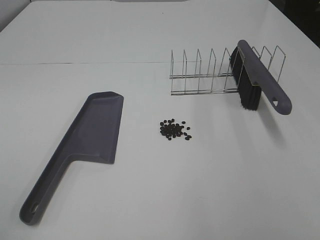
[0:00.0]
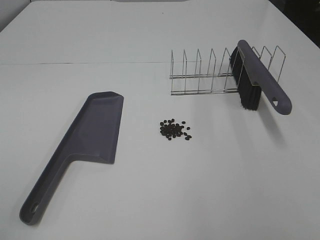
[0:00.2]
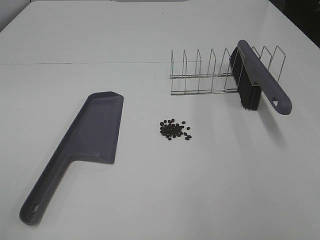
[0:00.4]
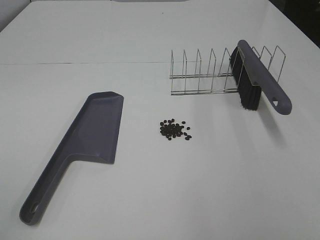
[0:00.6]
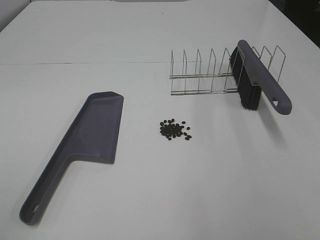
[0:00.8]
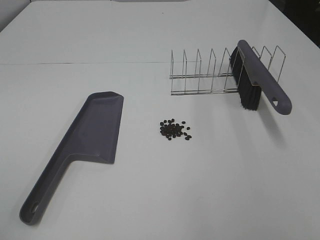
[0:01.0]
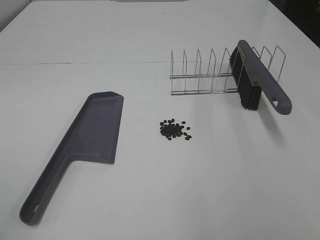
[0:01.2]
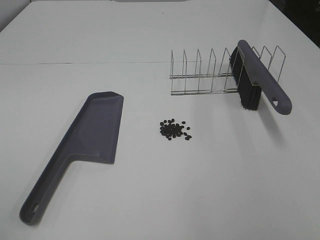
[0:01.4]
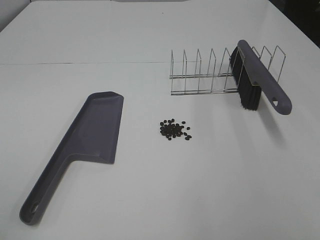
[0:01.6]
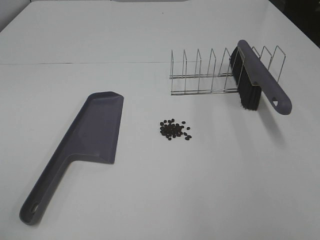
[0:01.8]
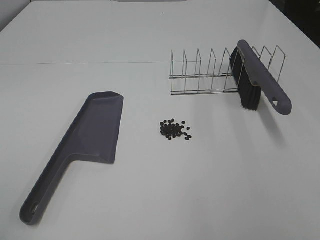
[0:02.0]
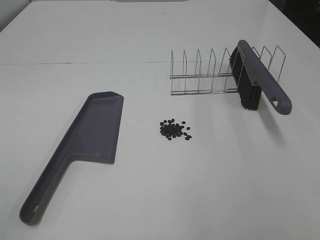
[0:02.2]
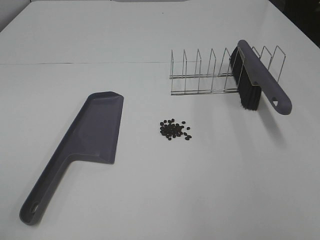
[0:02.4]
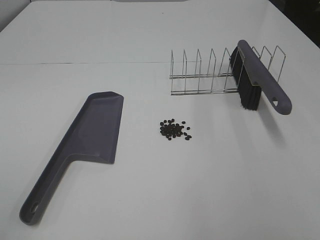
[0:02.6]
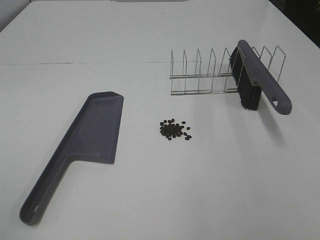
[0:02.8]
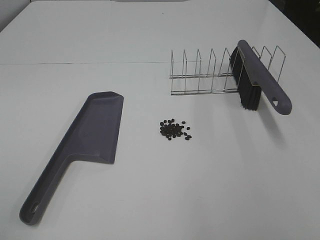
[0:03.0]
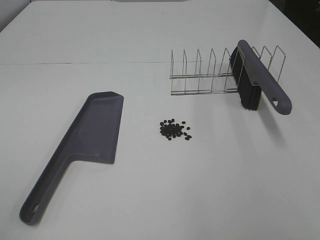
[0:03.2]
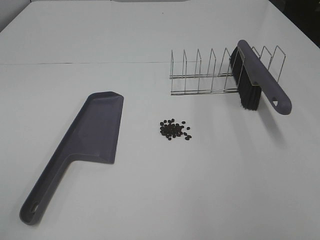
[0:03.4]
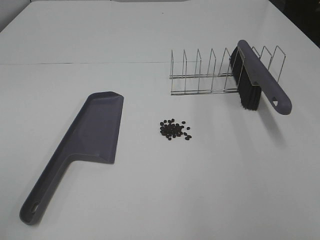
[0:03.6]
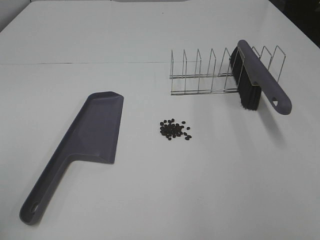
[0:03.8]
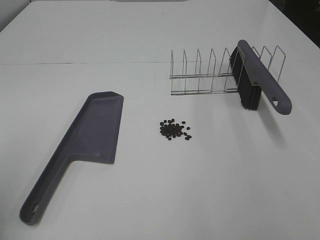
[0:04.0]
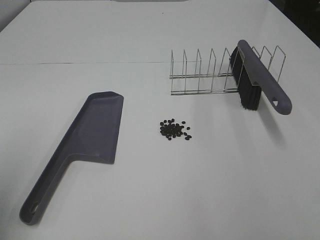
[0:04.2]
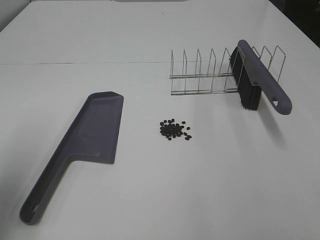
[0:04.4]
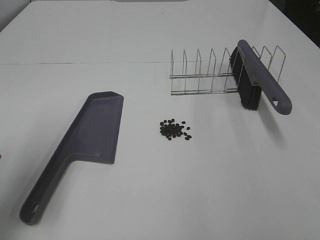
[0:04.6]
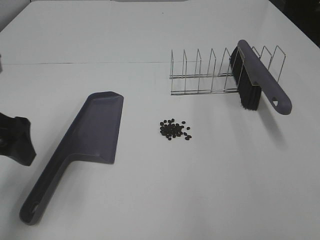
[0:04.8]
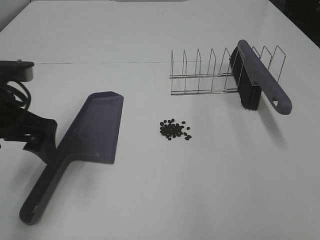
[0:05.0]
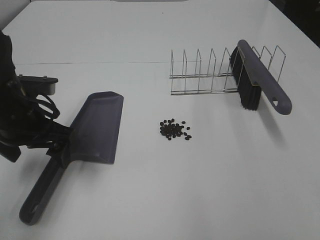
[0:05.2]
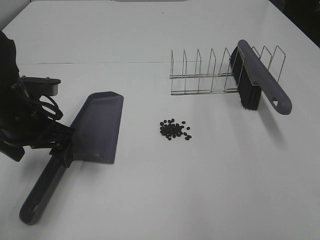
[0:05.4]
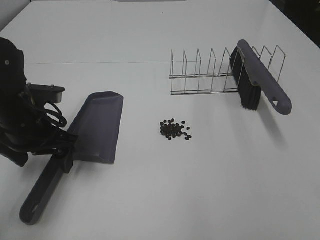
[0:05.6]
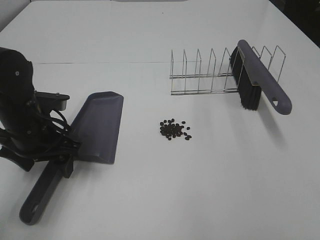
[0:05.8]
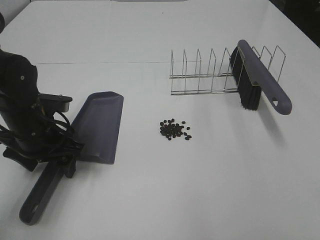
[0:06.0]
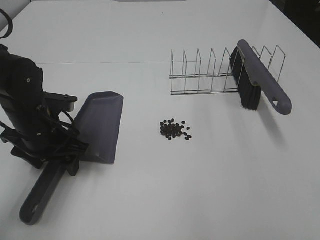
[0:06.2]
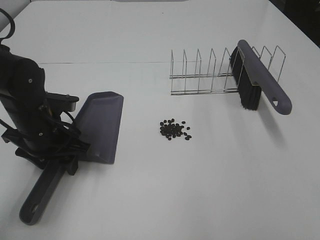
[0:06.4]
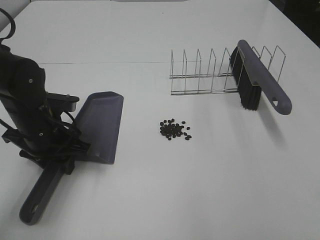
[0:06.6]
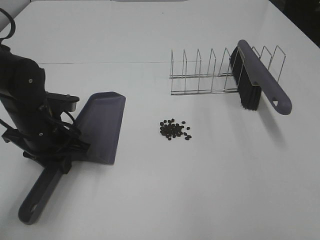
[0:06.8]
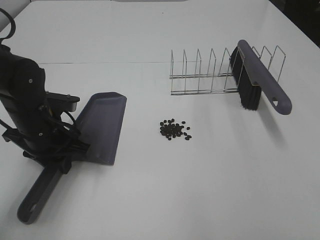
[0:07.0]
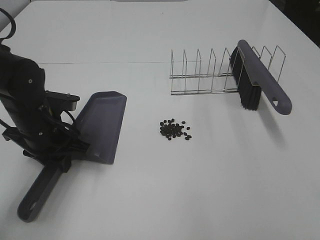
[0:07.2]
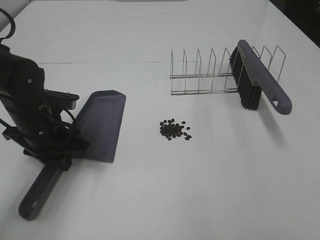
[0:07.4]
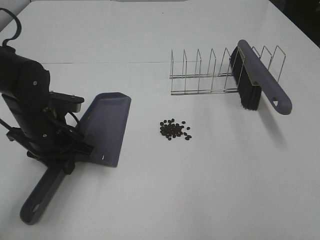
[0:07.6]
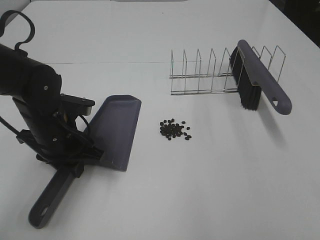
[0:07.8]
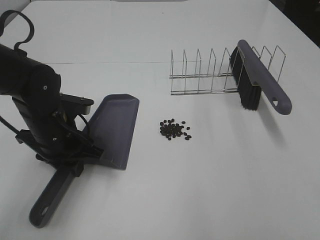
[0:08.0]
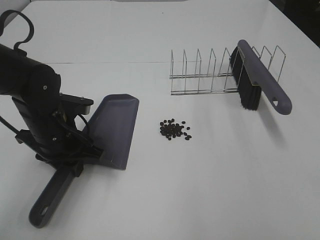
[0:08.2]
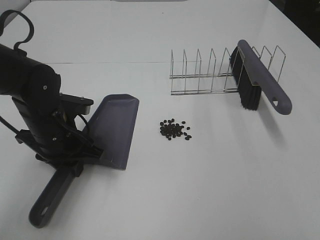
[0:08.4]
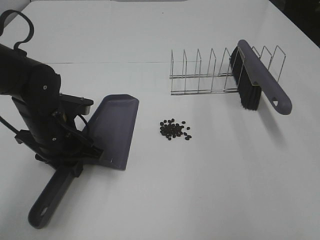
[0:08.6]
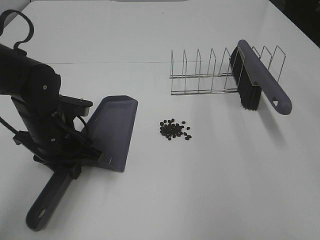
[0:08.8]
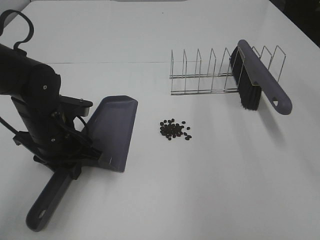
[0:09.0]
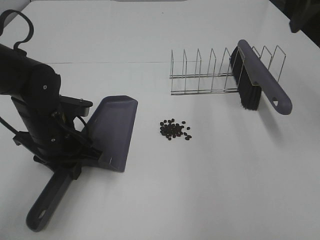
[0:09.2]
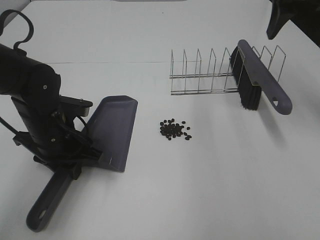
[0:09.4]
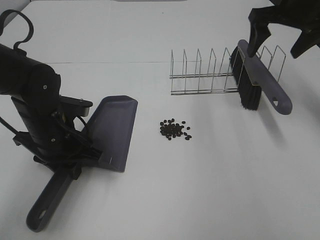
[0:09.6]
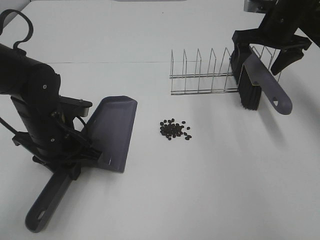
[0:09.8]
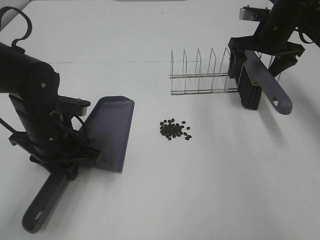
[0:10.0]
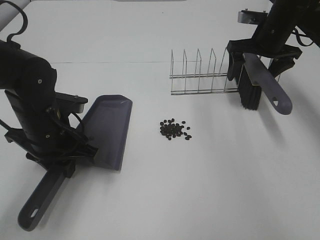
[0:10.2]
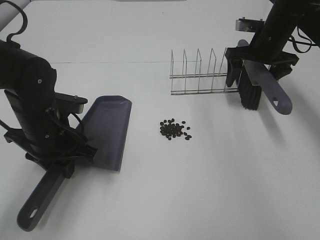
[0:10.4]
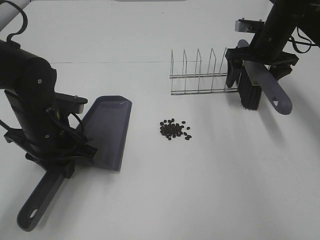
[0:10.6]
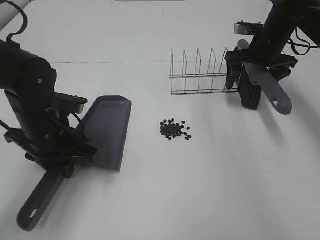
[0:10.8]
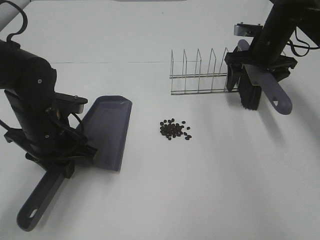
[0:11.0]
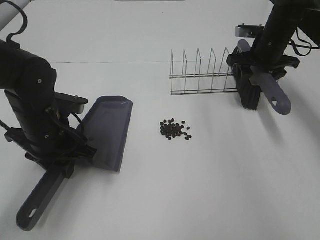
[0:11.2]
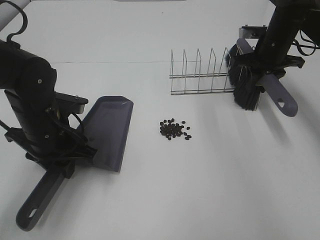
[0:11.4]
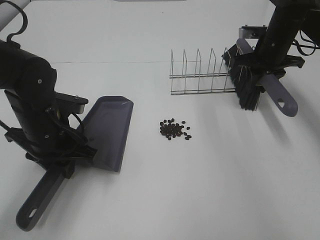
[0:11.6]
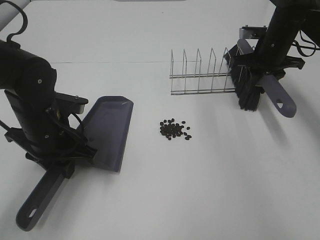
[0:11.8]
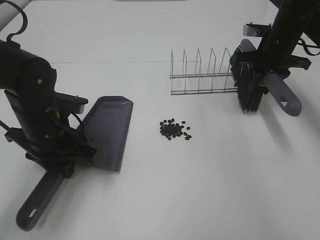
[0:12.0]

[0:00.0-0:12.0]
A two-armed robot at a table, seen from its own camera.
Task of the whole recording: Sweep Coffee Bean.
Step, 0:00.0 to 0:06.8: Left hand: grab the dustpan.
Step, 0:08.4 to 0:11.4: Right hand:grab the broom.
0:00.0 to 0:03.0: Both grippers stay put.
0:03.0 to 0:04.4: The left gripper shifts approximately 20 cm forward.
0:04.4 to 0:06.0: The left gripper moves downward, forward and to the right, approximately 20 cm, and closes its fingers.
0:06.0 to 0:07.6: The left gripper closes.
0:07.6 to 0:09.0: The right gripper travels forward by some 25 cm, and opens.
0:09.0 to 0:10.4: The right gripper is displaced forward and downward by roughly 30 cm.
0:10.4 to 0:12.0: The right gripper closes.

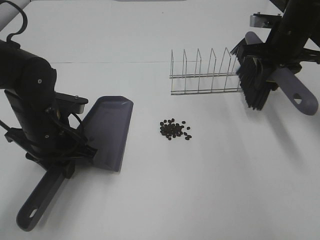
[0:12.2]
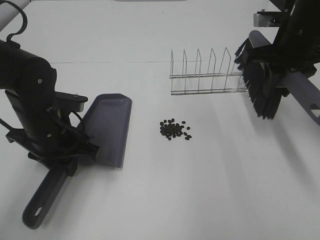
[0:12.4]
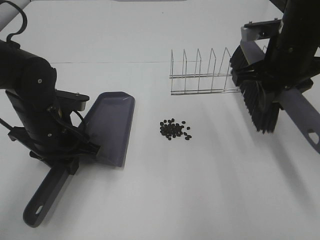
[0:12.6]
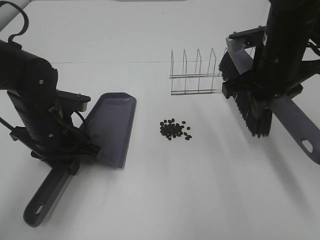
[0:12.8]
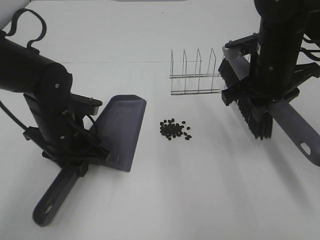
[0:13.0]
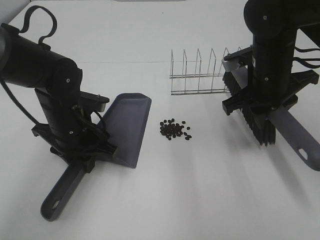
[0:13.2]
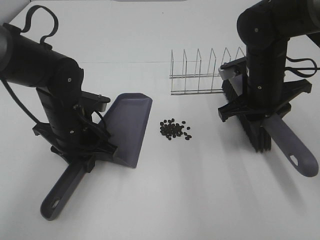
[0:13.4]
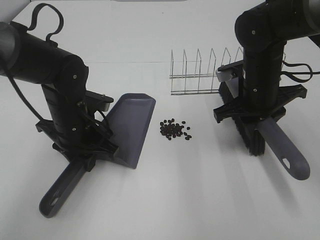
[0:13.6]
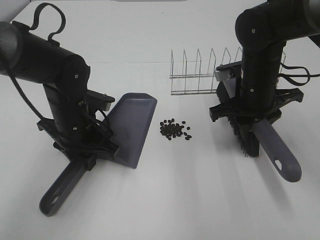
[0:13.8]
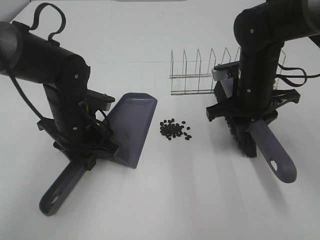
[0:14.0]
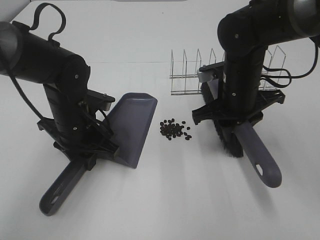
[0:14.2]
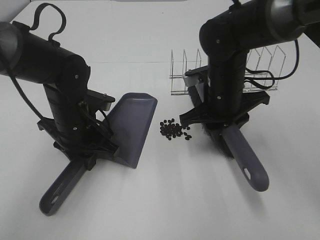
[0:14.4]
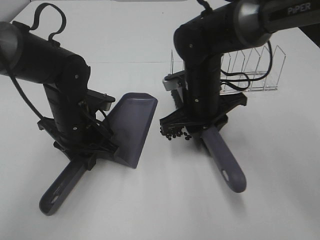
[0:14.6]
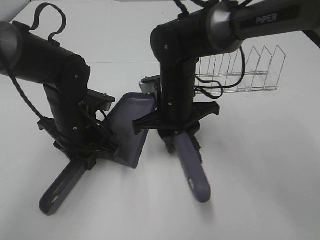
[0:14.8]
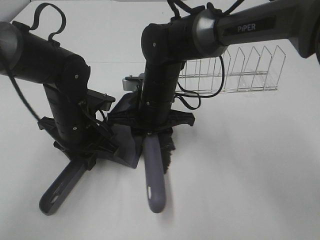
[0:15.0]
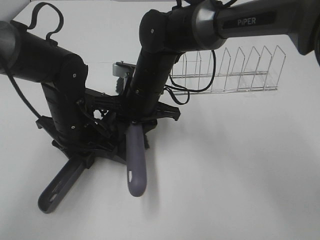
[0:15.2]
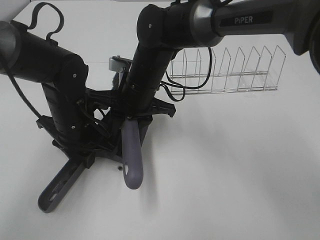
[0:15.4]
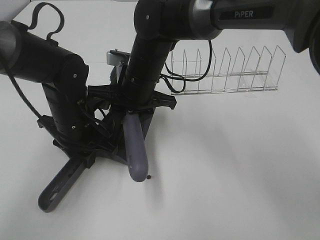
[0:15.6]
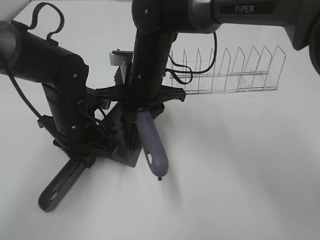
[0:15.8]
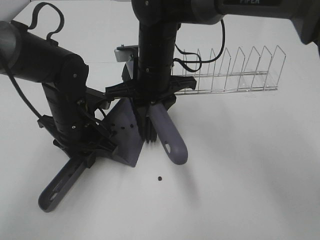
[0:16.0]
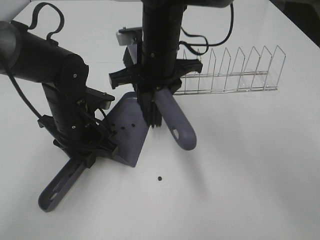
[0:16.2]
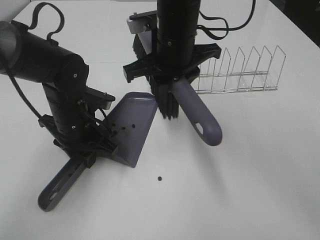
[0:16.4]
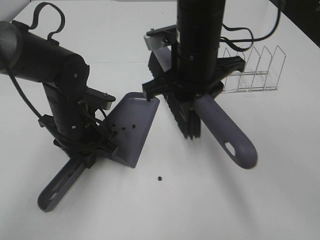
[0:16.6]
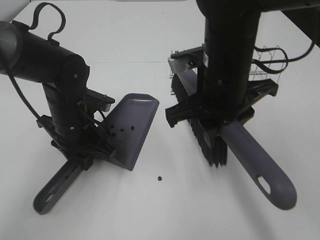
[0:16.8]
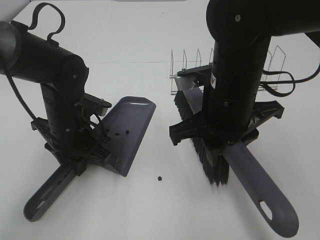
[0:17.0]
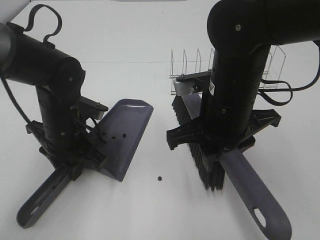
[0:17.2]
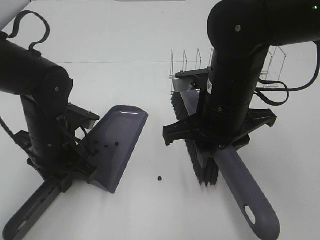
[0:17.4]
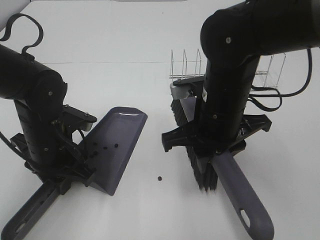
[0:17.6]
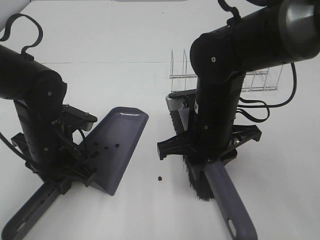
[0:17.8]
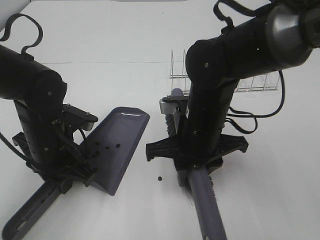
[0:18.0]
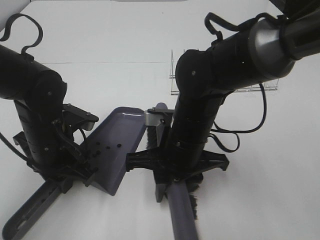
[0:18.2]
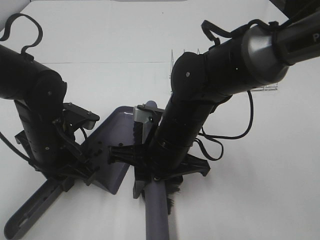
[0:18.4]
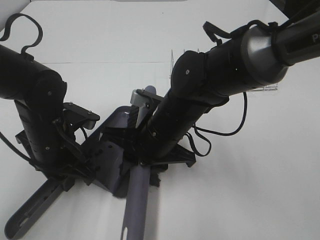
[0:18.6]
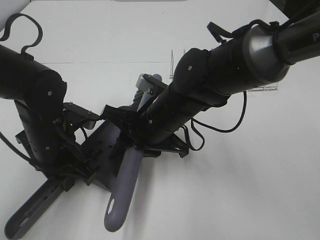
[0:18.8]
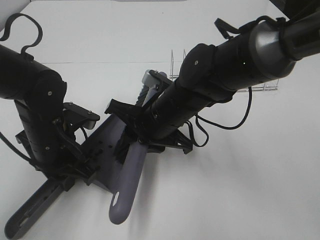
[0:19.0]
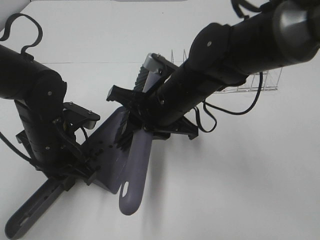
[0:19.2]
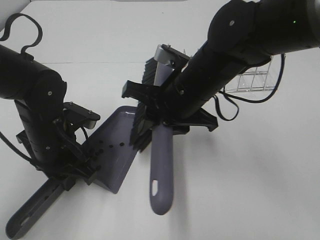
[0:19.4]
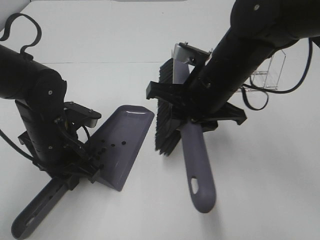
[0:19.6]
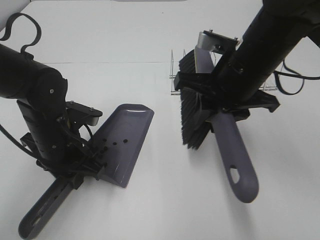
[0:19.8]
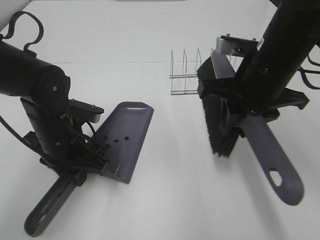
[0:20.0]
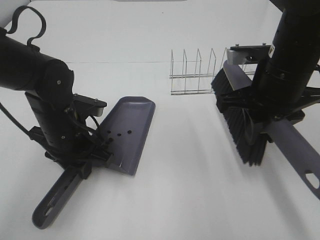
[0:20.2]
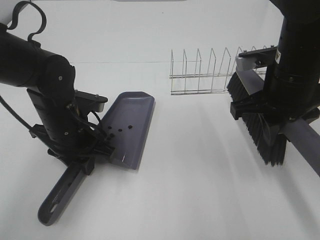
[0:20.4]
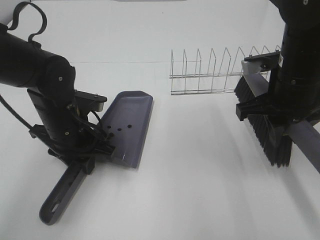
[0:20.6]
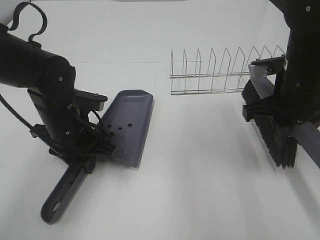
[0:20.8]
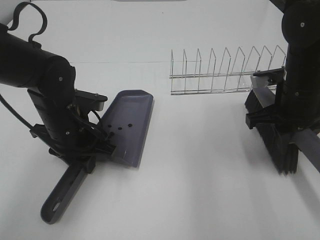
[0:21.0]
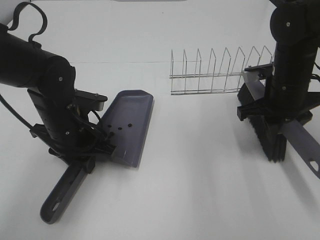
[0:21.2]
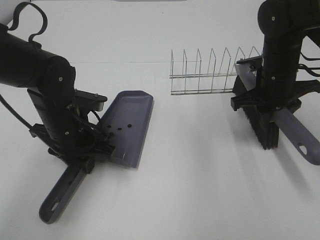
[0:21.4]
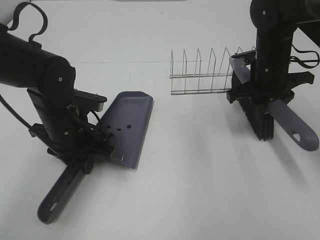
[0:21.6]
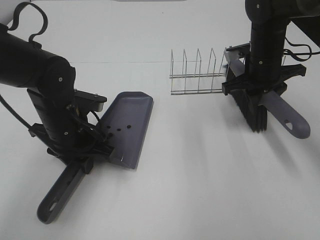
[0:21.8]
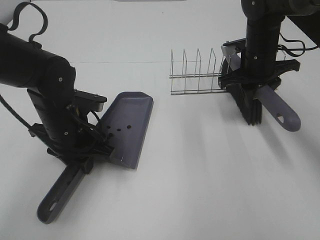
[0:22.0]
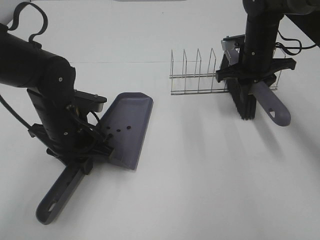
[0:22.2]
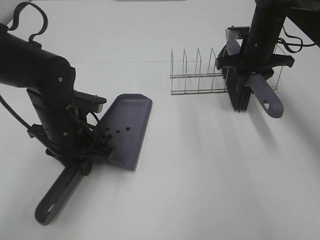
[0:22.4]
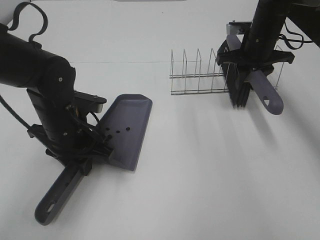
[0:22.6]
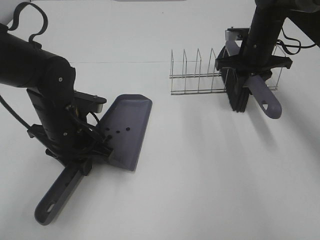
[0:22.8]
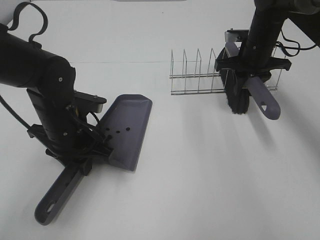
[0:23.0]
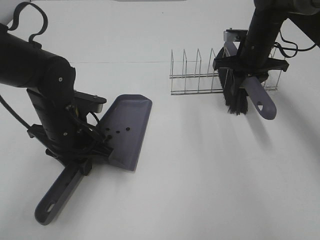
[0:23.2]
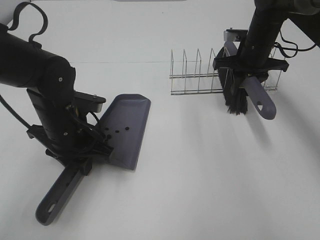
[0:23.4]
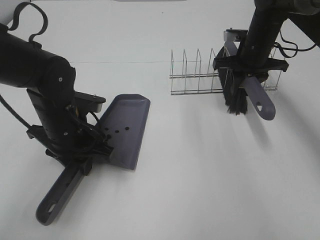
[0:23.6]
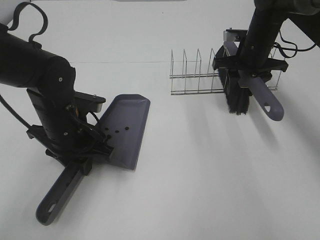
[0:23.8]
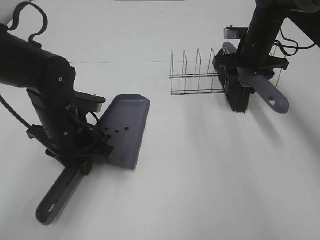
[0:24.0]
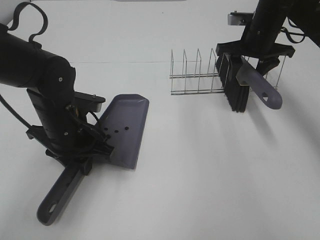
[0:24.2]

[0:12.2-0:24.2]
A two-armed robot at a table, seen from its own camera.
Task of the whole recording: Sweep Coffee Bean.
Step, 0:12.2 to 0:19.2: Right hand:sweep the coffee beans into the dustpan.
Step, 0:19.4 to 0:24.0: Right hand:place the broom on the rack.
0:12.2 to 0:13.8: The right gripper goes about 15 cm to the left, backward and downward.
0:13.8 to 0:15.2: The right gripper is displaced to the left by approximately 20 cm.
0:15.2 to 0:16.6: The right gripper travels upward, to the right and backward by roughly 15 cm.
0:16.6 to 0:18.2: The right gripper goes about 10 cm downward and backward. Meanwhile the left gripper changes place by approximately 5 cm.
0:18.2 to 0:19.8: The right gripper goes roughly 15 cm upward and to the right.
0:19.8 to 0:21.2: The right gripper is displaced to the right, downward and forward by approximately 15 cm.
0:21.2 to 0:22.6: The right gripper goes some 15 cm forward.
0:22.6 to 0:24.2: The right gripper opens.
